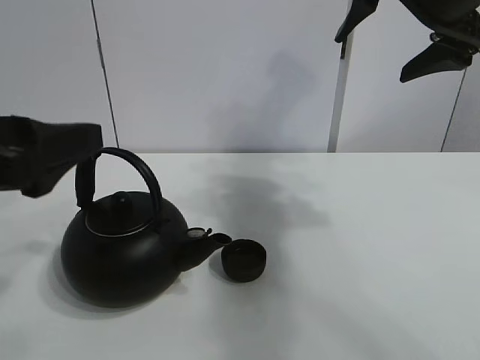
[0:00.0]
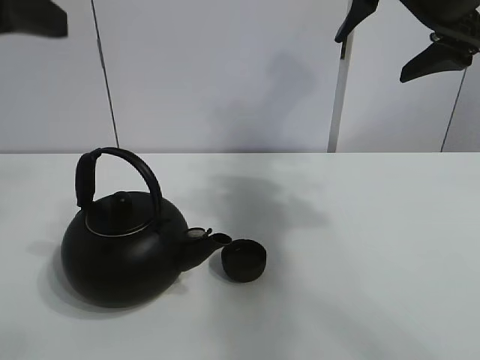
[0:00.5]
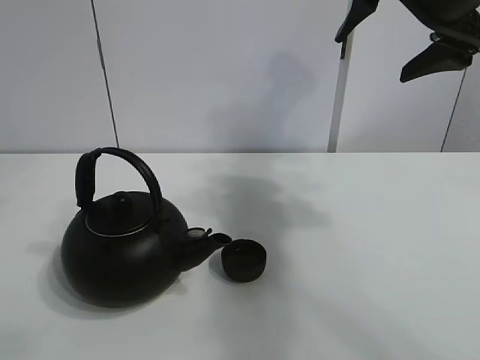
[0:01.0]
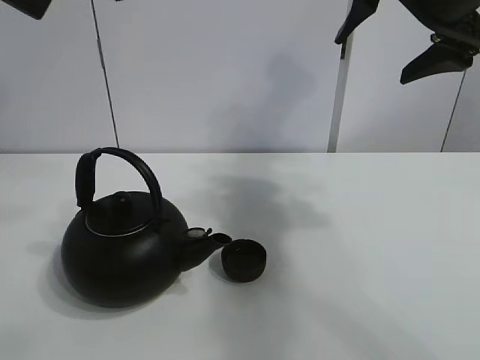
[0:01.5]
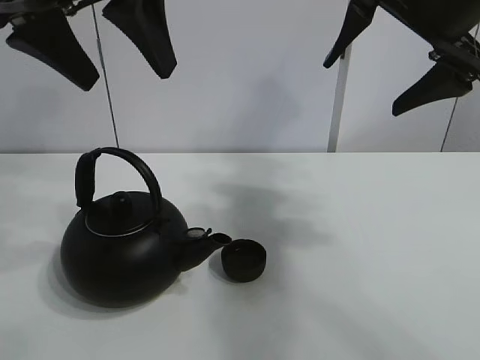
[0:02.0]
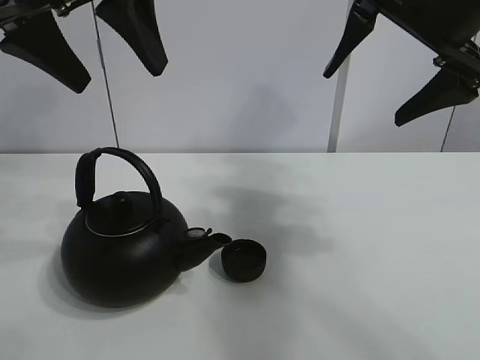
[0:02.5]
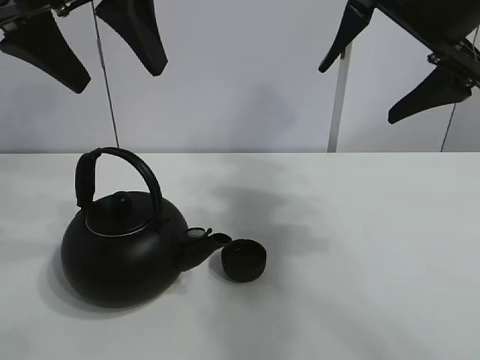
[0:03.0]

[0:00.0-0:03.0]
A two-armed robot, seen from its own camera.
Task of the whole recording: pour tea into the teacup.
0:00.0 to 0:01.5: The left gripper goes some 20 cm upward.
0:01.5 to 0:03.0: The left gripper heads forward, covering approximately 5 cm.
